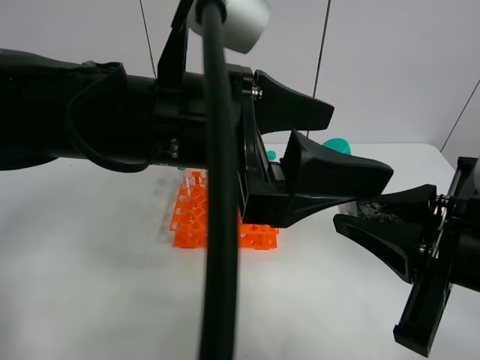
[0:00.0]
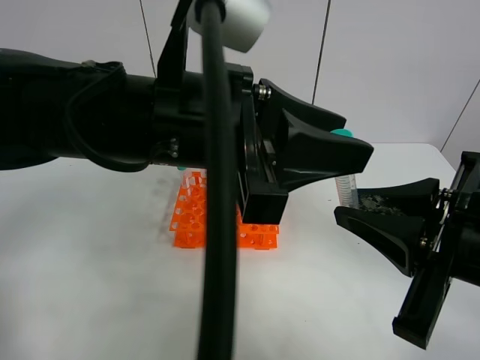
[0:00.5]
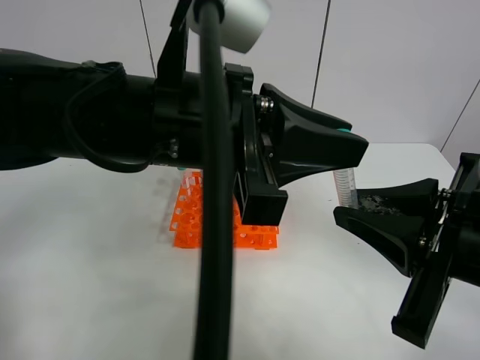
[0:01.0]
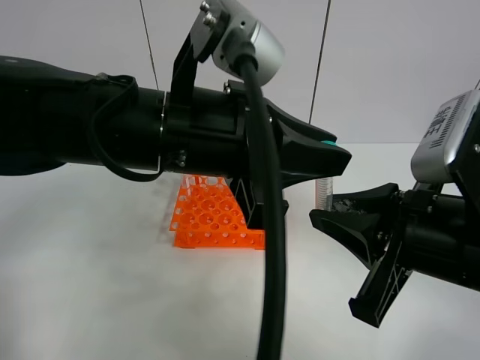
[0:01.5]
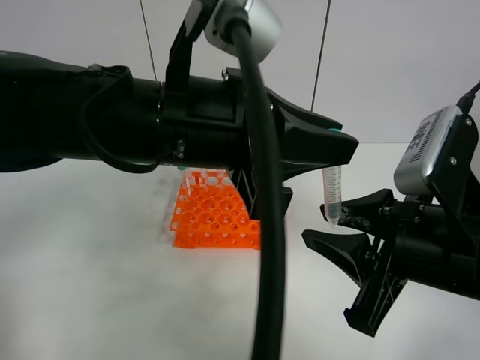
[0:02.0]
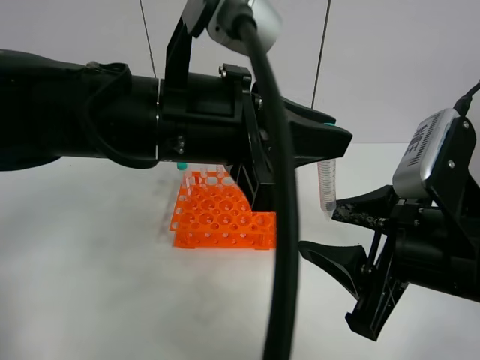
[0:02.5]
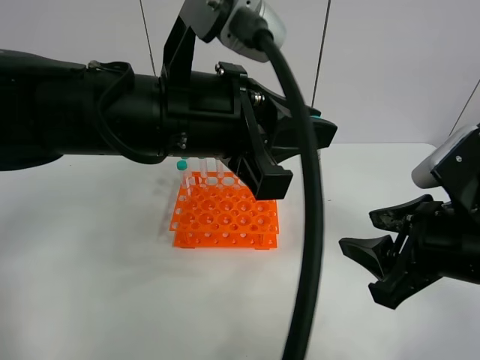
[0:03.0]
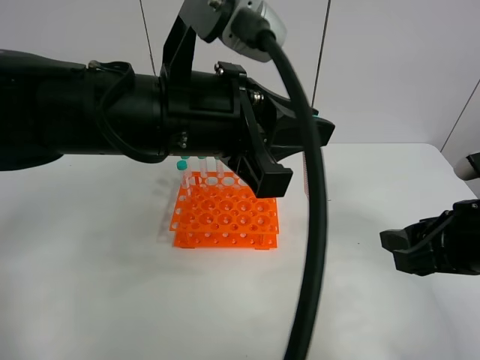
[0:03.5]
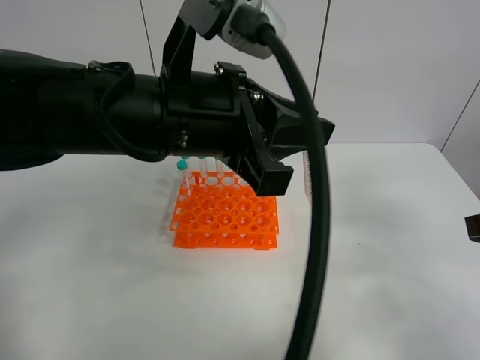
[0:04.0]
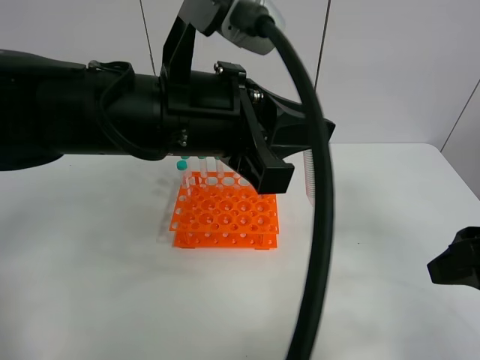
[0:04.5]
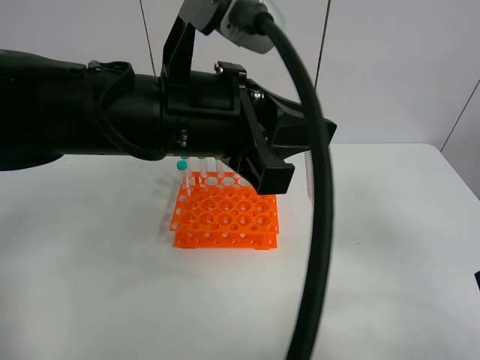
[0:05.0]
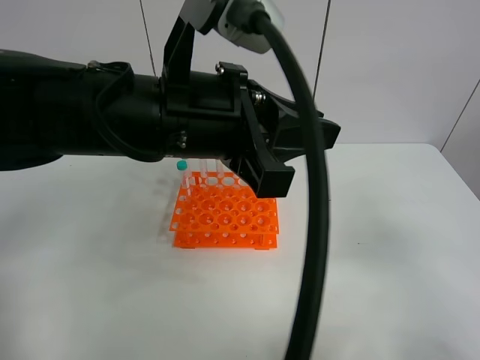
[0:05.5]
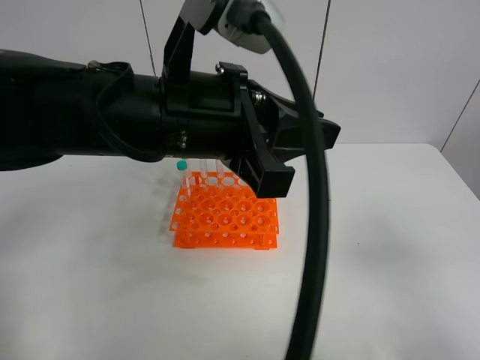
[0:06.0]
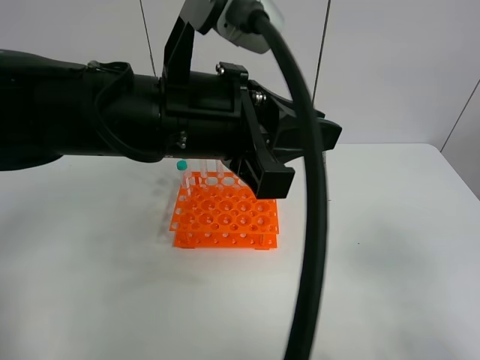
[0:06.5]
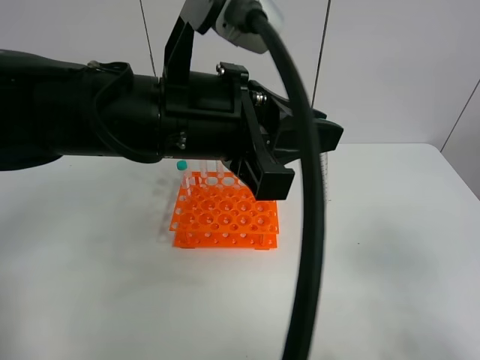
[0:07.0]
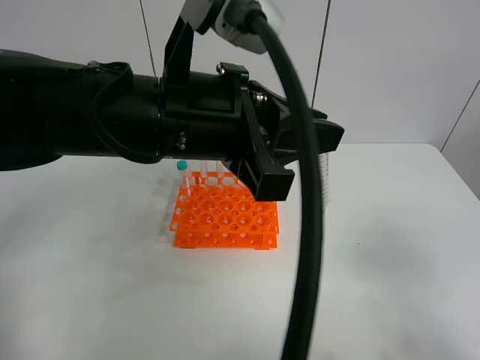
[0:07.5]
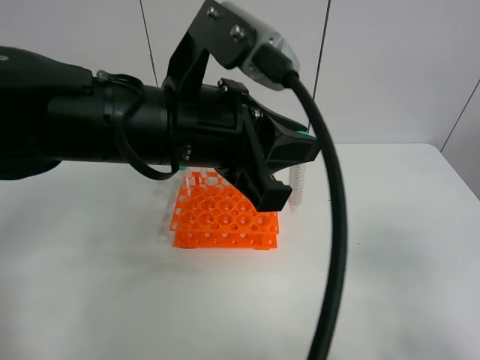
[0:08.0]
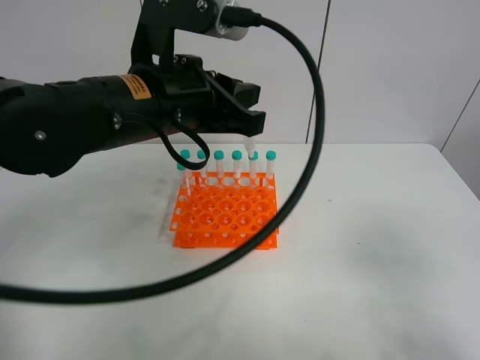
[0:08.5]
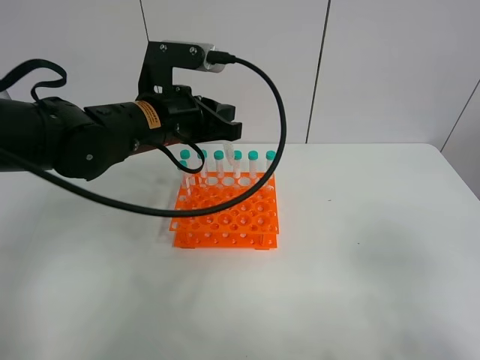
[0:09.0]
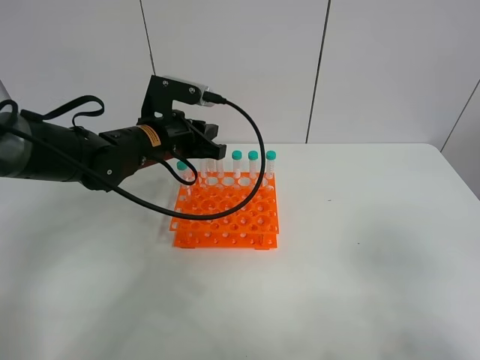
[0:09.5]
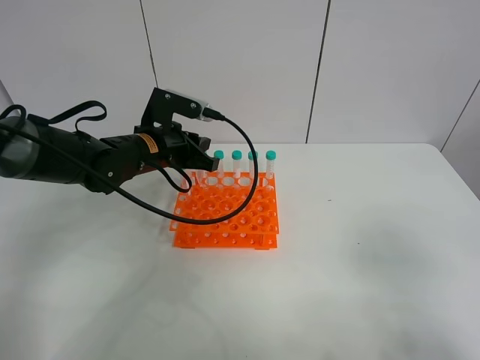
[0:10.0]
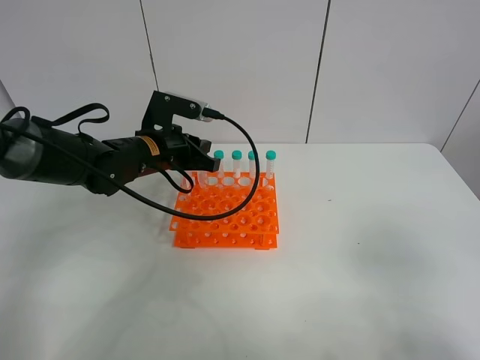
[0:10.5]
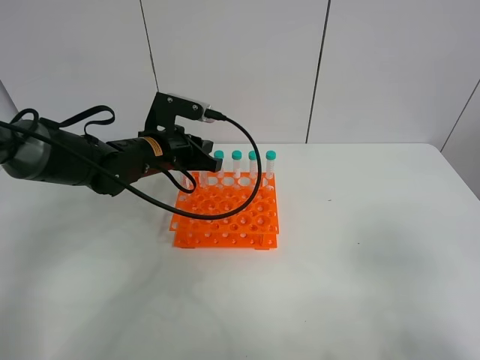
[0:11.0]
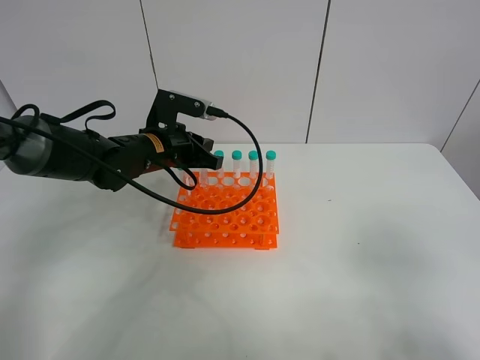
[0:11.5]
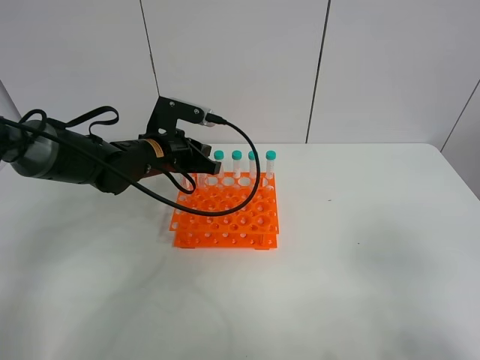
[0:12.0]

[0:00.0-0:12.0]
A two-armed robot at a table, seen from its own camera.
Task of the whole recording: Put the test tube on the table back onto the test tube rack.
Step, 0:00.0 to 0:03.0: Move the test tube from the right gripper to the left gripper.
0:00.0 to 0:02.0: The left gripper closes its fingers. Meanwhile the right gripper opens up.
0:02.0 to 0:04.0: The right gripper goes approximately 10 cm to the right, and opens its fingers.
0:04.0 to 0:06.0: The right gripper is displaced backward by approximately 15 cm.
0:06.0 to 0:08.0: There are only small adjustments of the grippers.
0:08.0 to 0:10.0: The left gripper goes some 20 cm forward, downward and to the left.
0:10.0 to 0:12.0: The grippers make only small movements.

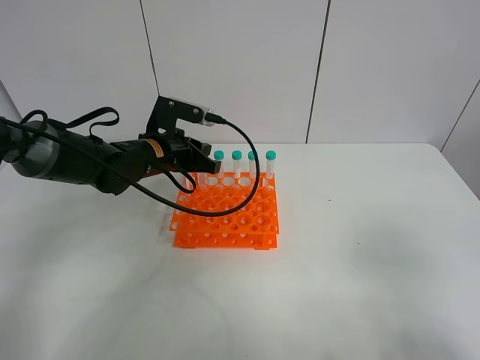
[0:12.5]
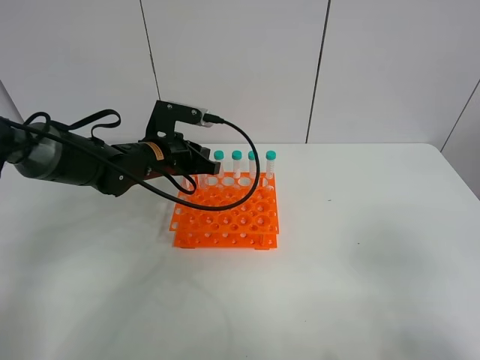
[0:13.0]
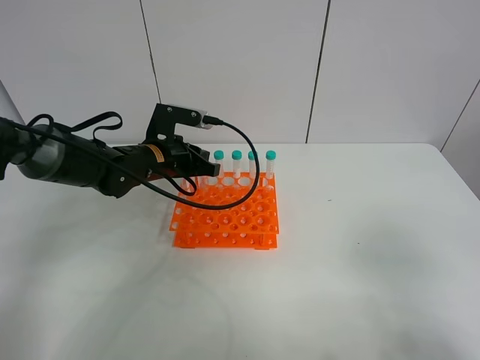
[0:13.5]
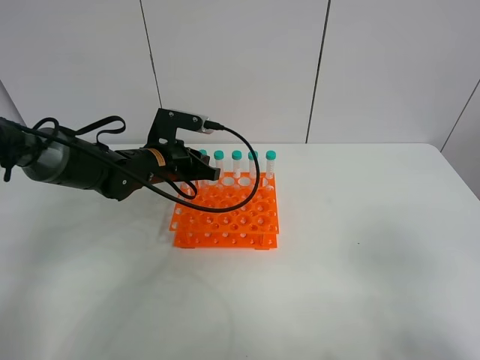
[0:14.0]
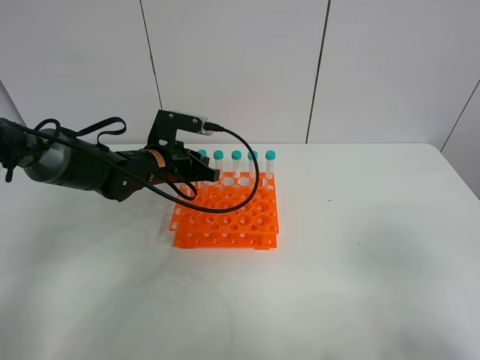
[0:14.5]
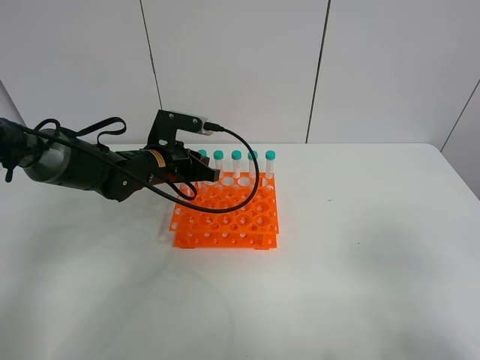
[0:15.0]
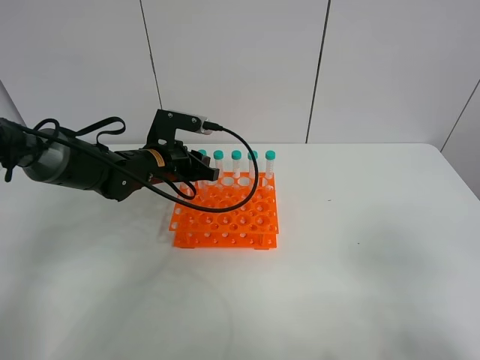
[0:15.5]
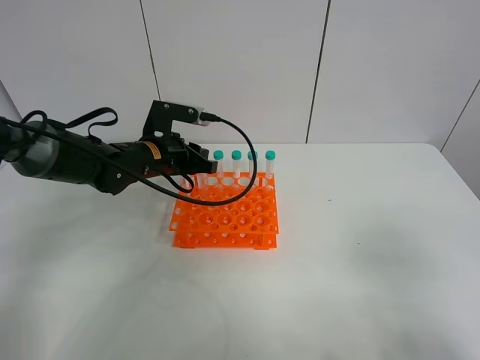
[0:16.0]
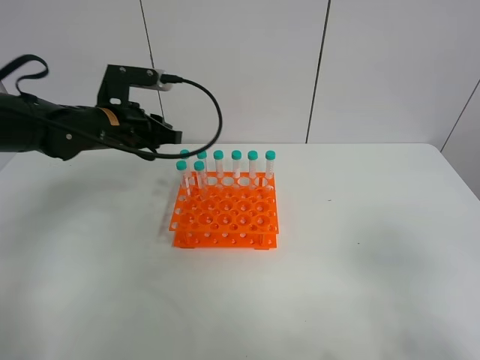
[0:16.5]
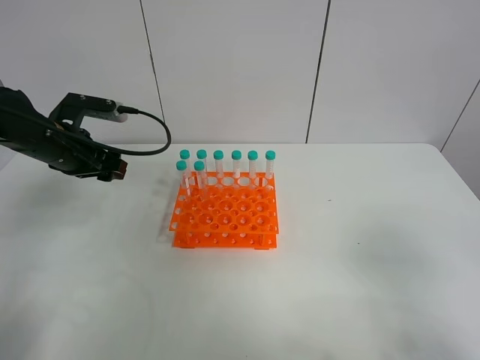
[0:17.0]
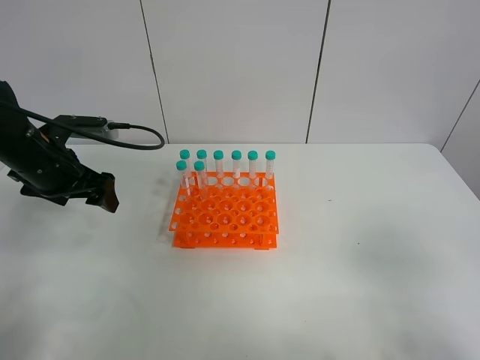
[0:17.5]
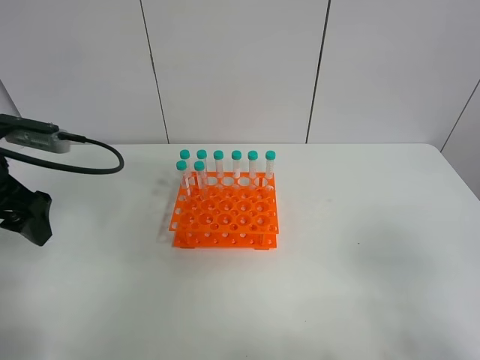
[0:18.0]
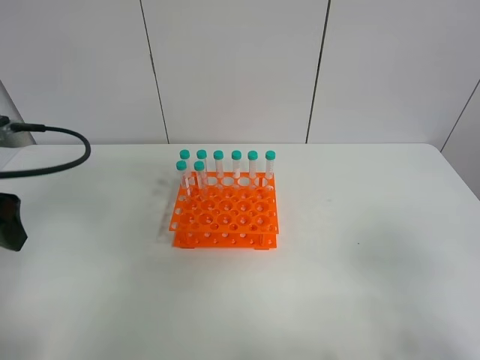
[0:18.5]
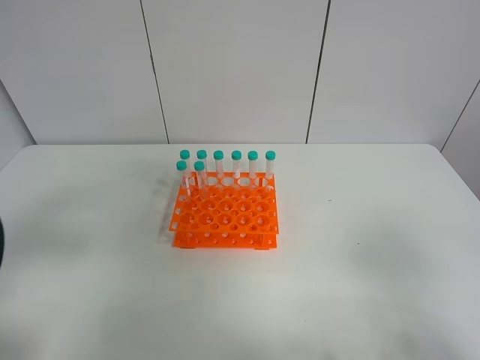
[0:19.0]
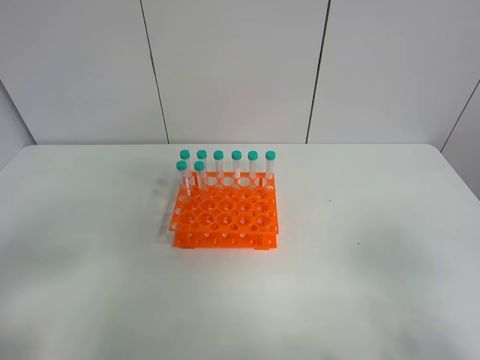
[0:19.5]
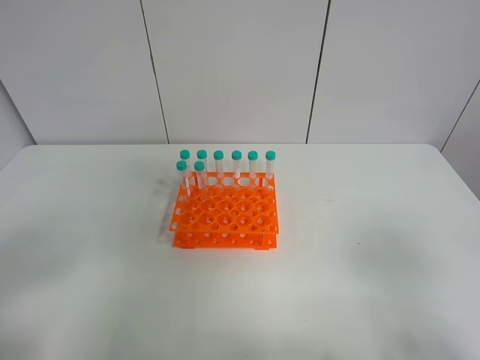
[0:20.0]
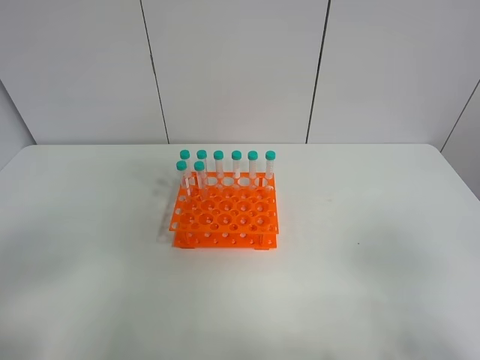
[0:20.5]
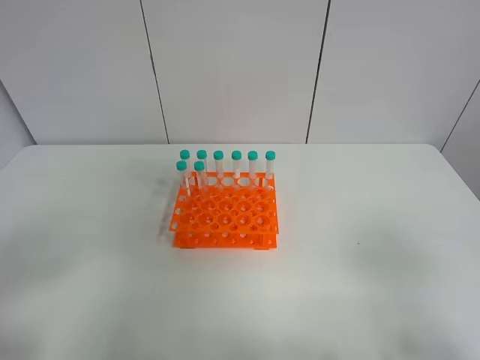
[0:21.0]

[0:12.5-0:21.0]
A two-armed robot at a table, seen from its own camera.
Task of the whole recording: Put the test tube on the table back onto the test tube rack.
Step, 0:12.5 to 0:16.5: Place the test tube on the test tube rack with the left gripper.
0:12.5 to 0:14.5: The grippers move only a little.
0:14.5 to 0:16.5: The left gripper is displaced upward and to the left by about 10 cm.
0:16.5 to 0:19.0: The left gripper heads backward, covering approximately 30 cm, and opens up.
